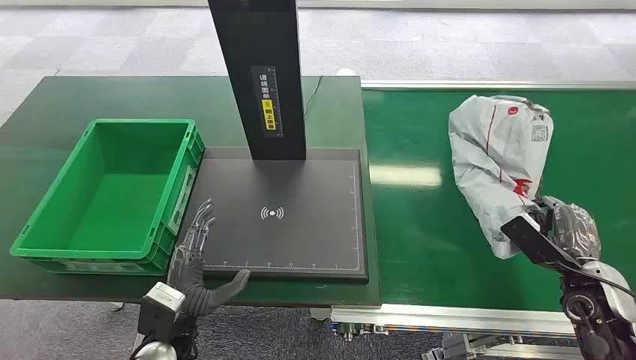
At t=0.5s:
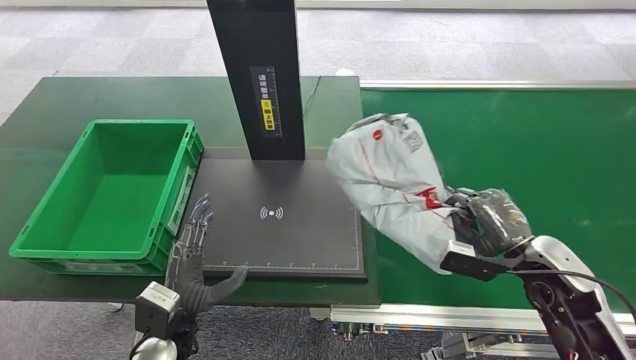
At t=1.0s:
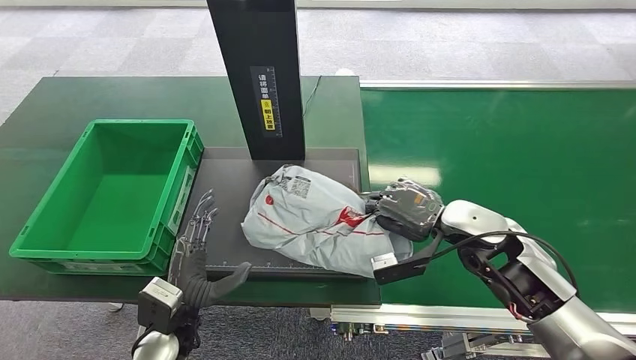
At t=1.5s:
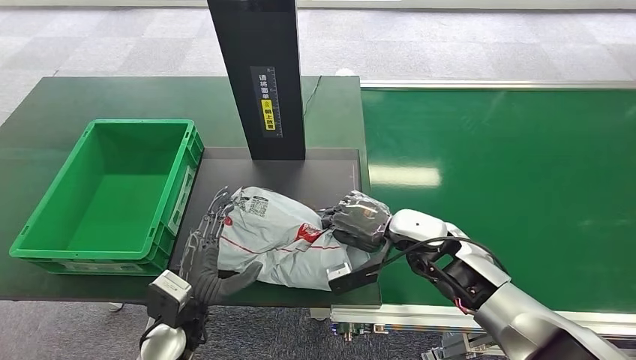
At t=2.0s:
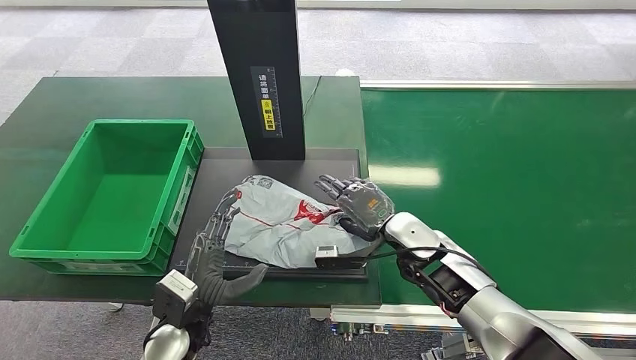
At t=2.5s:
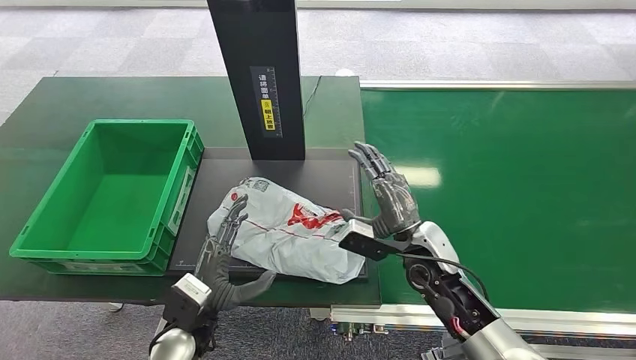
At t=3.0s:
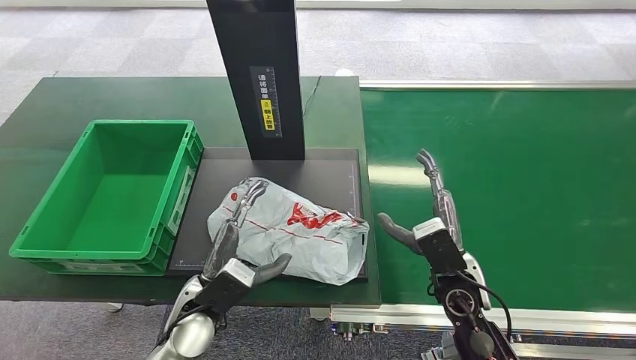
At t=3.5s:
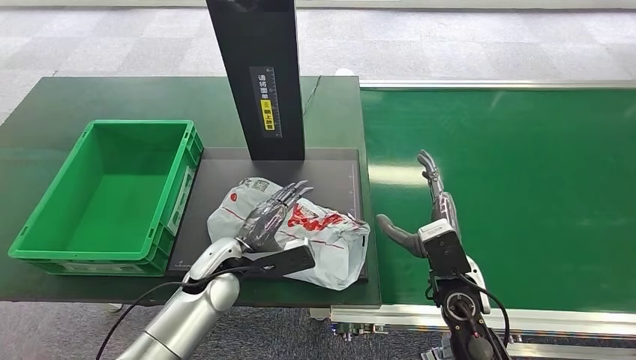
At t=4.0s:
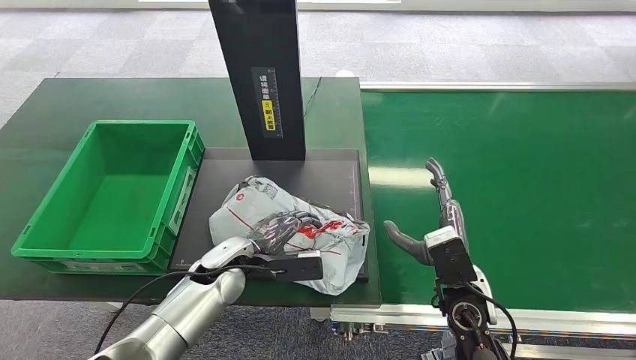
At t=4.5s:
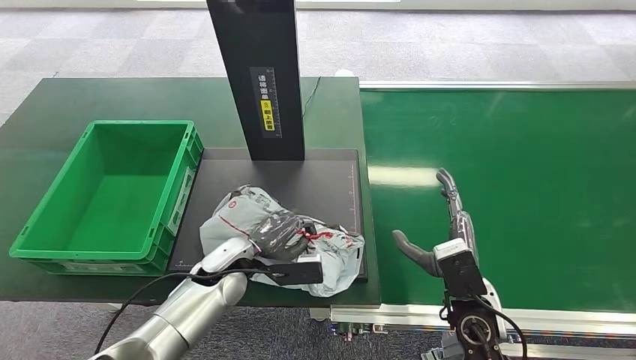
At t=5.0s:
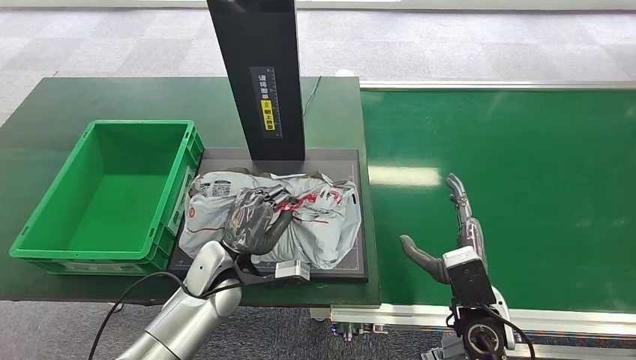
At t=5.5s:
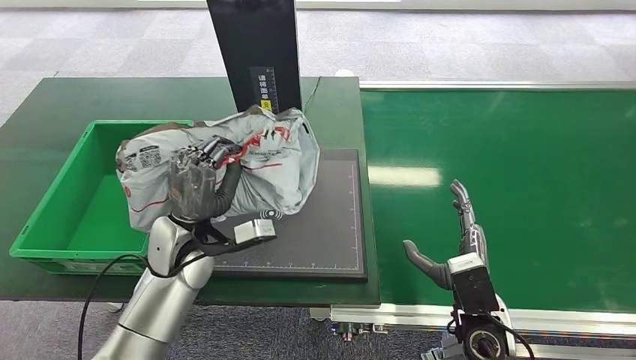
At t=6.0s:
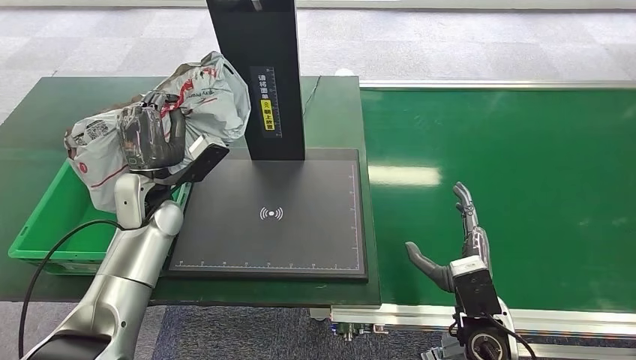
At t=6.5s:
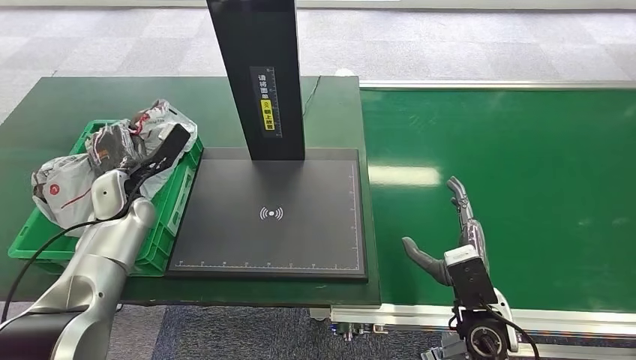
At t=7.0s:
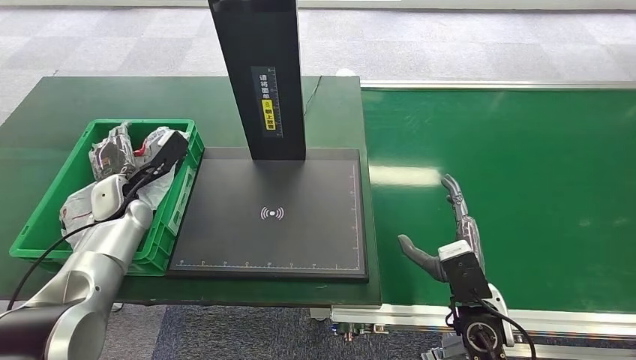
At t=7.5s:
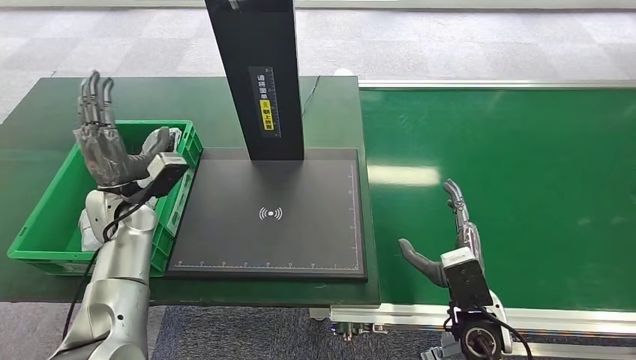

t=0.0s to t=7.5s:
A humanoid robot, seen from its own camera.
t=2.0s to t=4.0s: The left hand goes roughly 10 cm forward; the right hand goes some 10 cm backward.
t=5.5s to t=7.5s: The left hand shifts roughly 15 cm to the left and forward.
